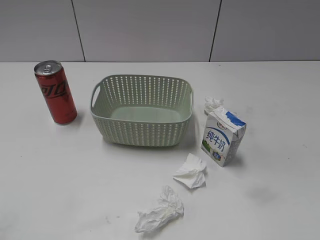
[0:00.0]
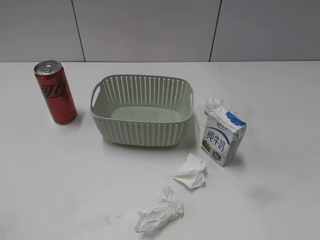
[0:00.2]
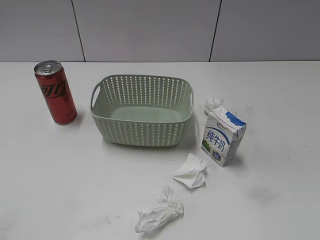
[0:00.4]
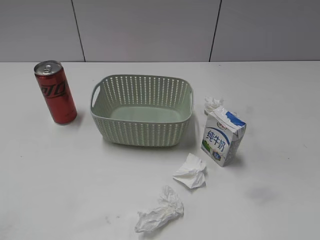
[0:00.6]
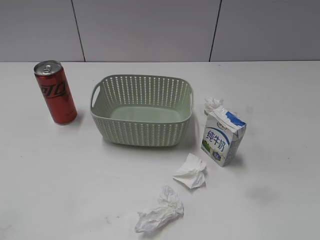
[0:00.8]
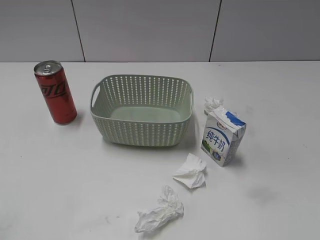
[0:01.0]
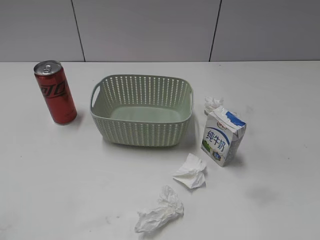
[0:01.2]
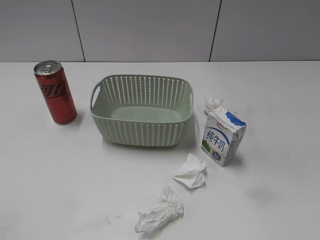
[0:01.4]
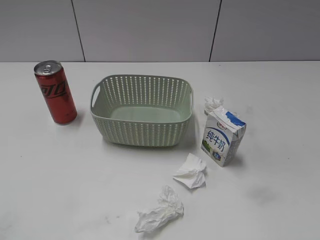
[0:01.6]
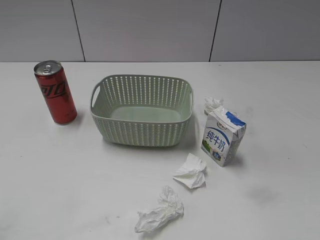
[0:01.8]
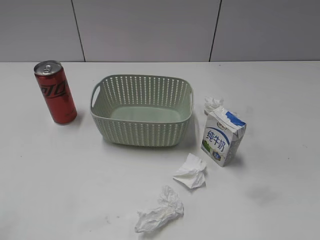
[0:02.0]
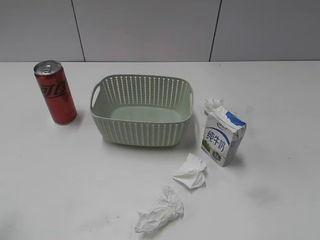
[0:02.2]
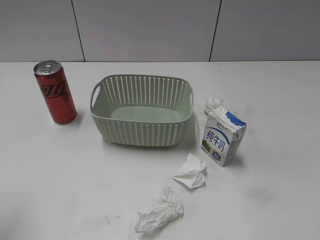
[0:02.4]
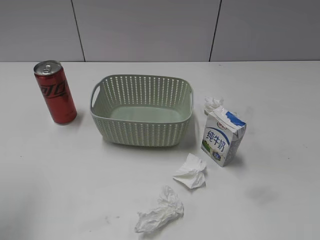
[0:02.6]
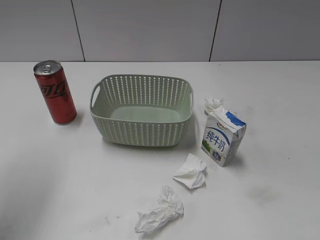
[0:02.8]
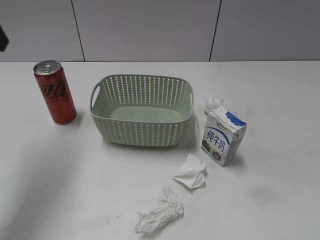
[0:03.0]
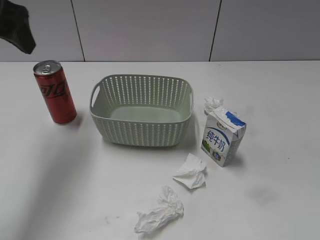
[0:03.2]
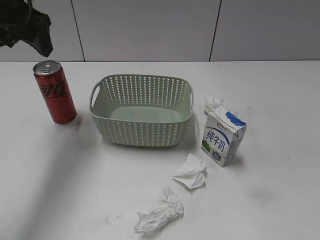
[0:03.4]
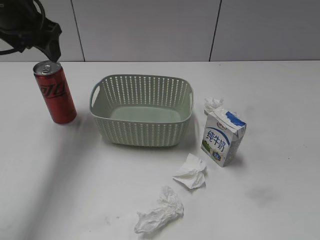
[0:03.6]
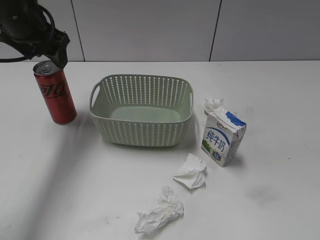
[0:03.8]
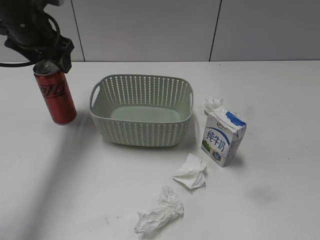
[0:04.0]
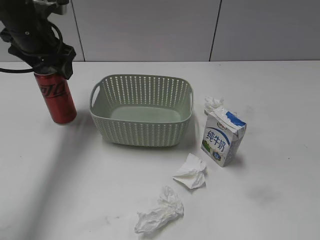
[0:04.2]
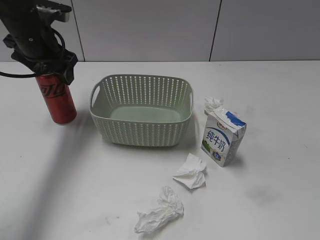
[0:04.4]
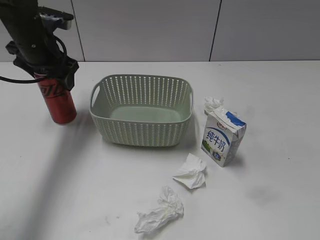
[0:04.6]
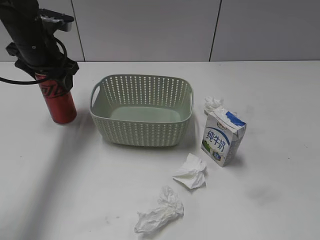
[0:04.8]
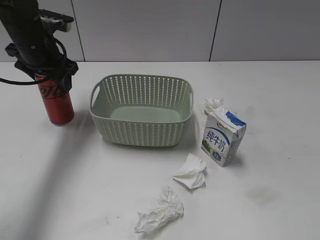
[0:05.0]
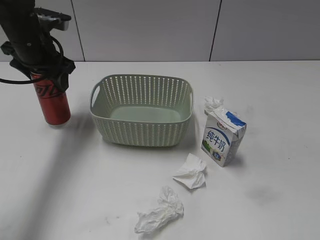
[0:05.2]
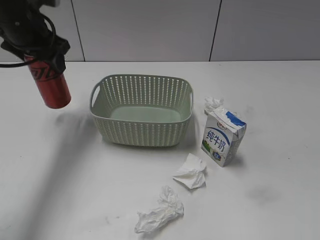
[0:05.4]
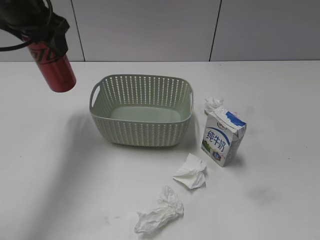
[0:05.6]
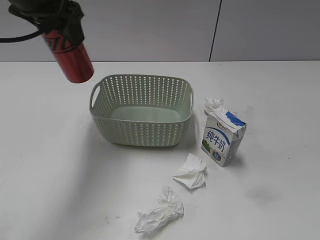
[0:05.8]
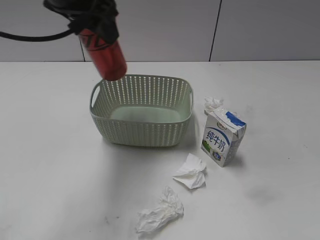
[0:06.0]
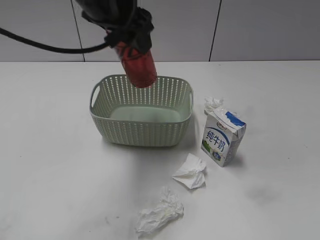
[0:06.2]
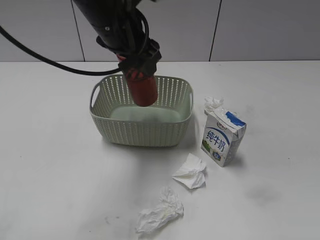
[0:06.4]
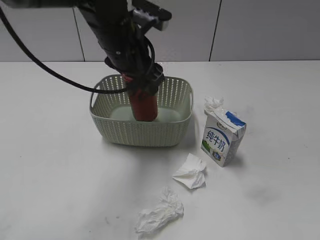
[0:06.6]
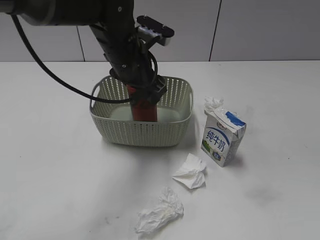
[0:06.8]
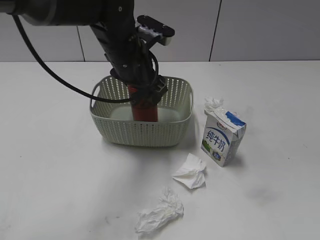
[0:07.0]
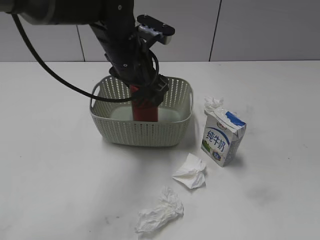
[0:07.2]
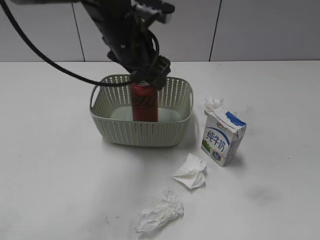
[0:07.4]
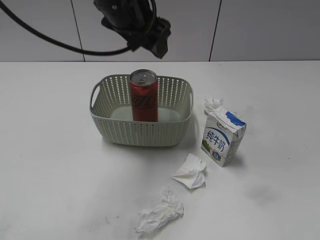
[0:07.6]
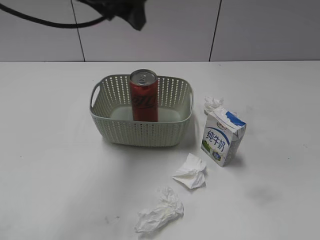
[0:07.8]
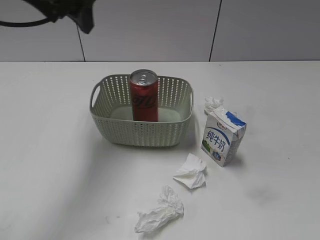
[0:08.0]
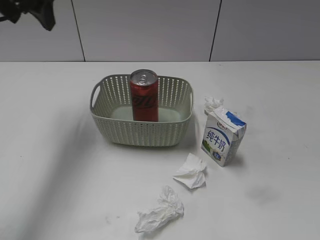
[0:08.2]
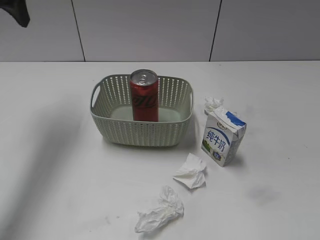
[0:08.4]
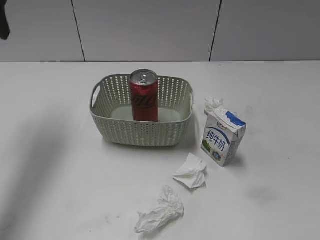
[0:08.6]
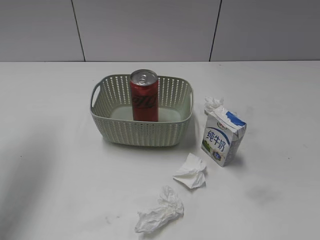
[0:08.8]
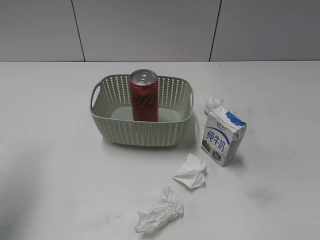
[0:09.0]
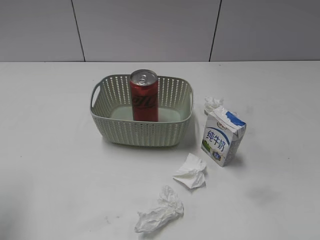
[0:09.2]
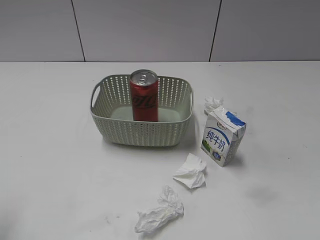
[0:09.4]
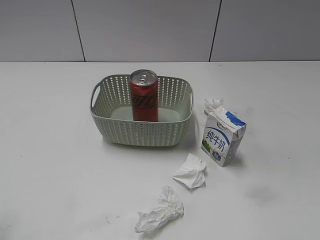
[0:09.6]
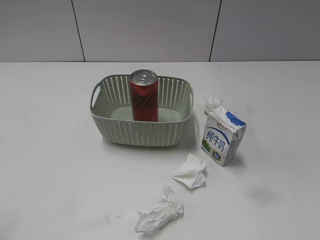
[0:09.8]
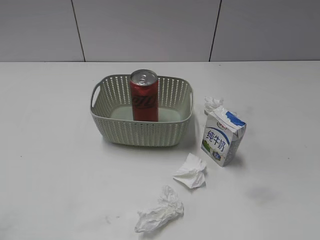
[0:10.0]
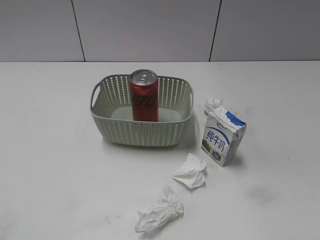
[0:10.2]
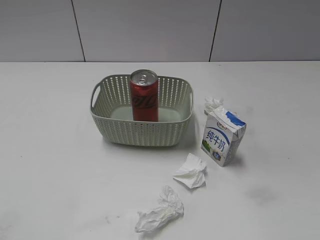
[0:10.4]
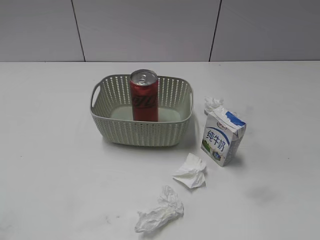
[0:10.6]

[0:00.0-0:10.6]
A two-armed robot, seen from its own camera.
0:01.6 to 0:03.0: The left gripper travels forward by about 25 cm, and opens up.
0:03.0 to 0:04.6: The left gripper is displaced downward and forward by roughly 20 cm.
0:04.6 to 0:06.0: The left gripper heads upward, to the right and backward, covering about 20 cm, and closes its fingers.
0:06.0 to 0:07.6: The left gripper is displaced to the right by about 5 cm, reaches about 15 cm downward, then returns, and opens.
0:07.6 to 0:09.0: The left gripper moves to the left and backward, roughly 25 cm, and closes.
0:09.0 to 0:10.6: The left gripper heads backward, covering approximately 25 cm.

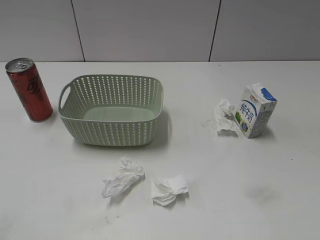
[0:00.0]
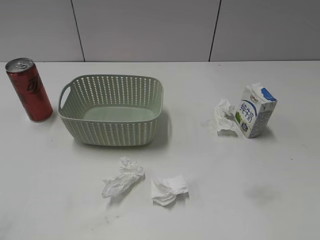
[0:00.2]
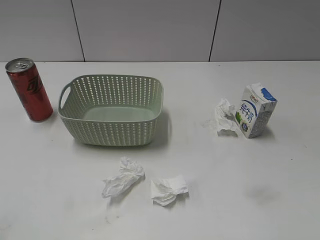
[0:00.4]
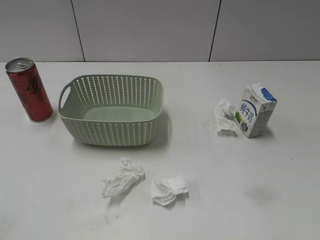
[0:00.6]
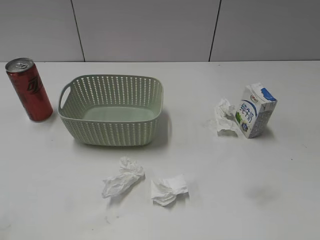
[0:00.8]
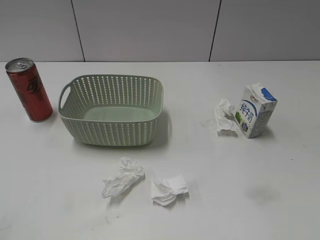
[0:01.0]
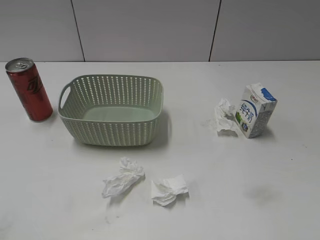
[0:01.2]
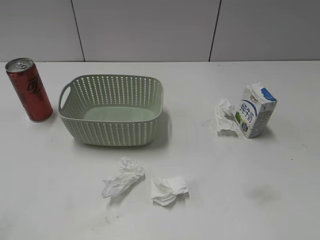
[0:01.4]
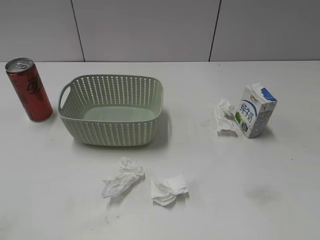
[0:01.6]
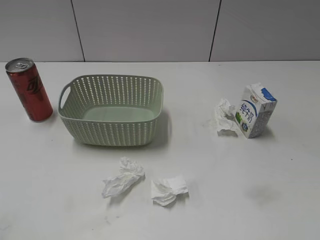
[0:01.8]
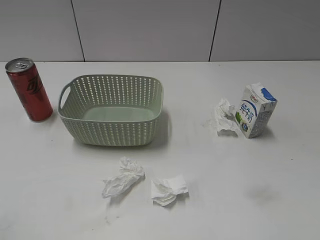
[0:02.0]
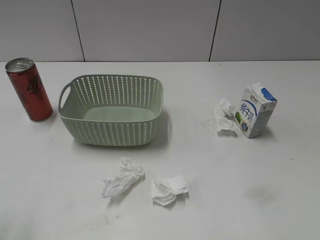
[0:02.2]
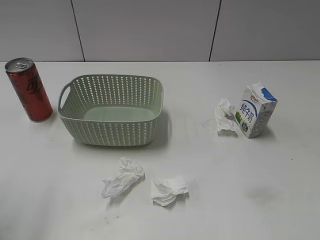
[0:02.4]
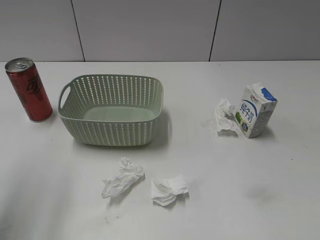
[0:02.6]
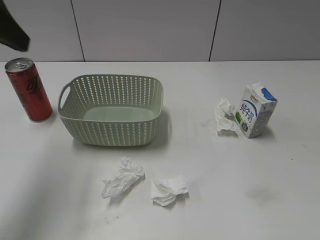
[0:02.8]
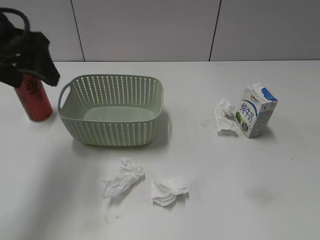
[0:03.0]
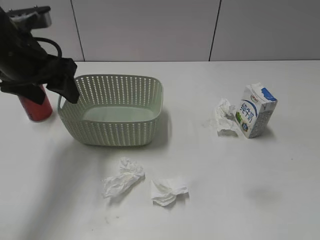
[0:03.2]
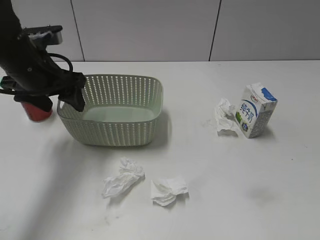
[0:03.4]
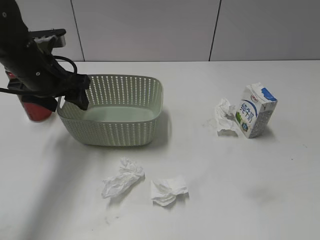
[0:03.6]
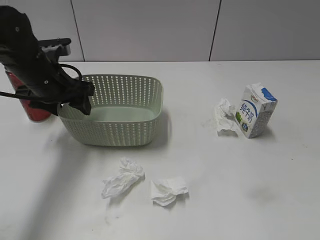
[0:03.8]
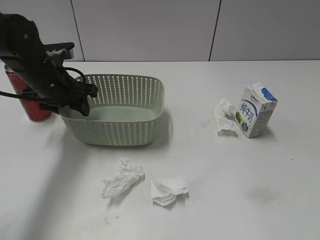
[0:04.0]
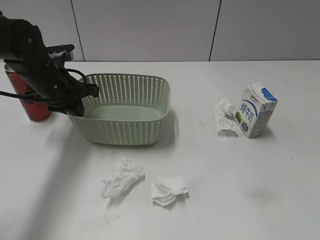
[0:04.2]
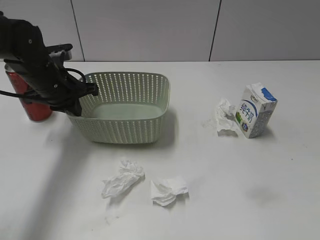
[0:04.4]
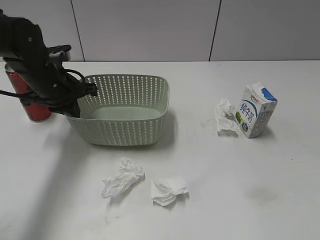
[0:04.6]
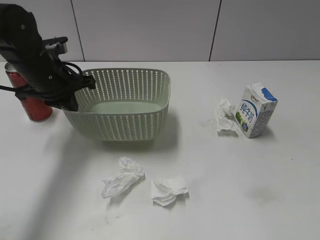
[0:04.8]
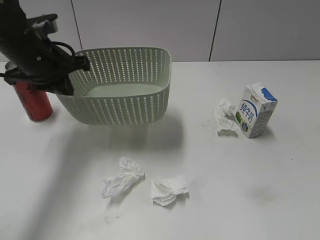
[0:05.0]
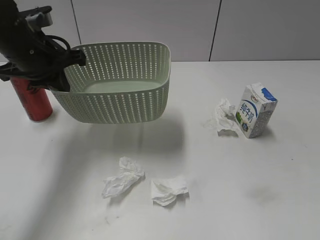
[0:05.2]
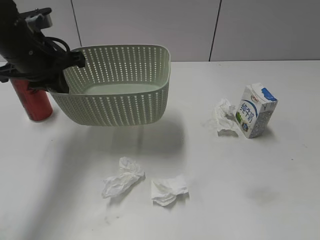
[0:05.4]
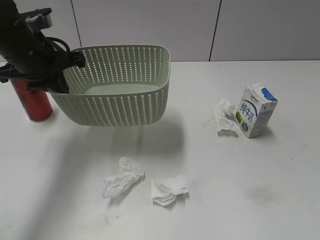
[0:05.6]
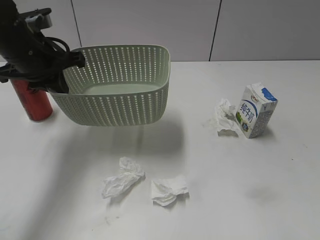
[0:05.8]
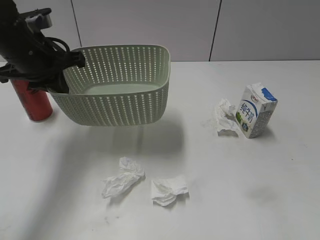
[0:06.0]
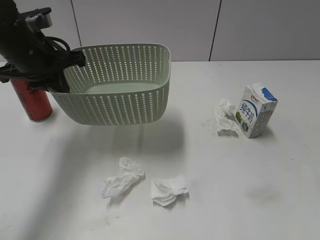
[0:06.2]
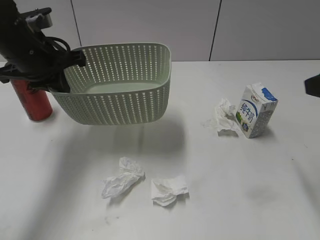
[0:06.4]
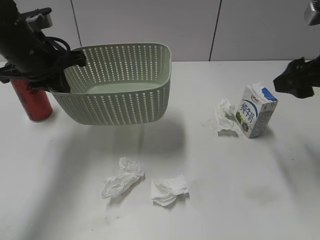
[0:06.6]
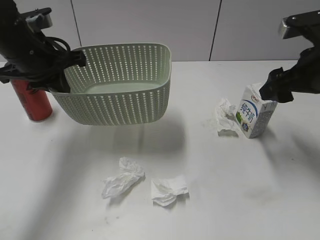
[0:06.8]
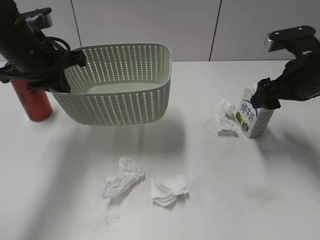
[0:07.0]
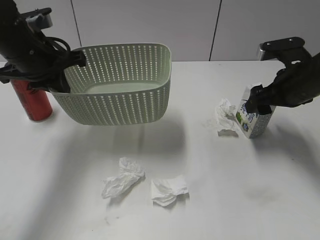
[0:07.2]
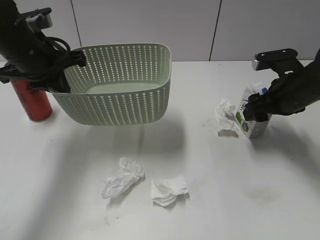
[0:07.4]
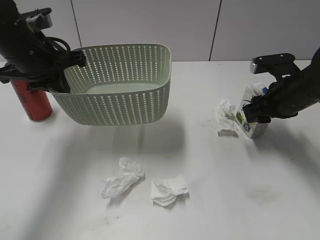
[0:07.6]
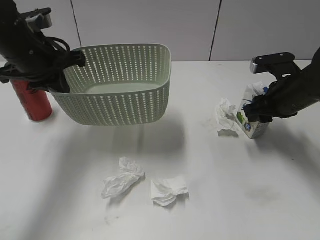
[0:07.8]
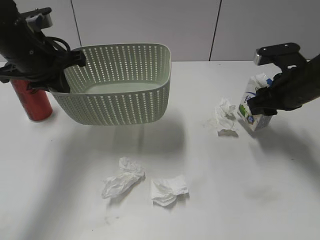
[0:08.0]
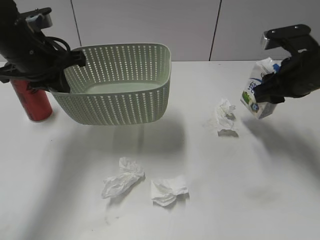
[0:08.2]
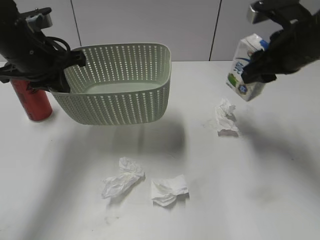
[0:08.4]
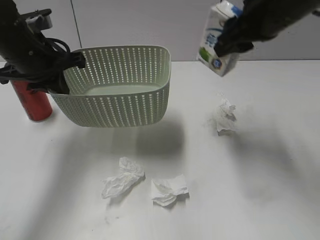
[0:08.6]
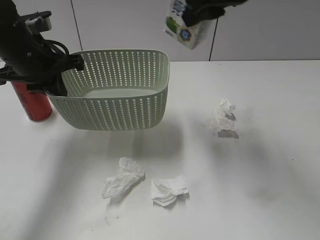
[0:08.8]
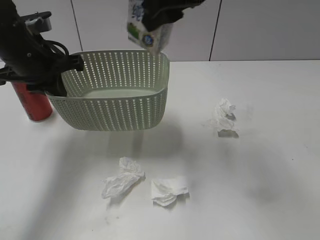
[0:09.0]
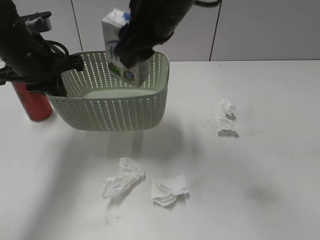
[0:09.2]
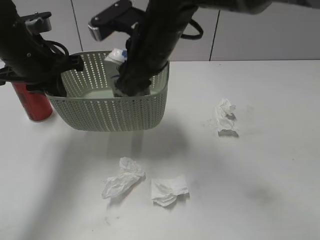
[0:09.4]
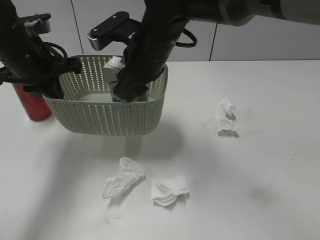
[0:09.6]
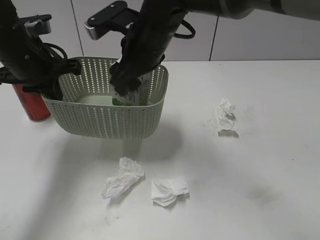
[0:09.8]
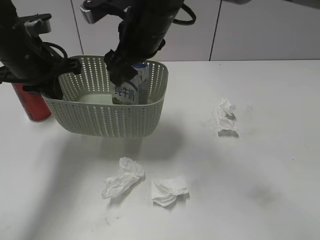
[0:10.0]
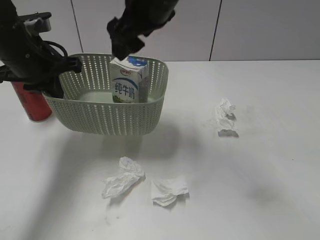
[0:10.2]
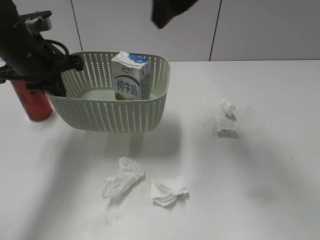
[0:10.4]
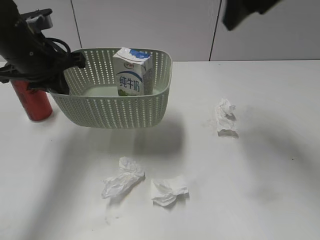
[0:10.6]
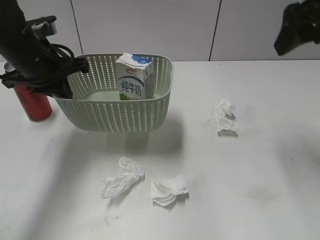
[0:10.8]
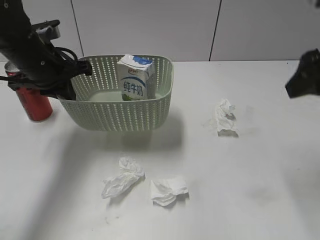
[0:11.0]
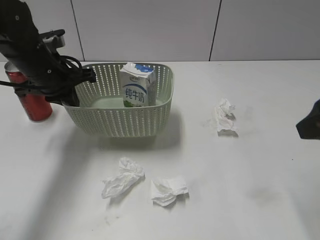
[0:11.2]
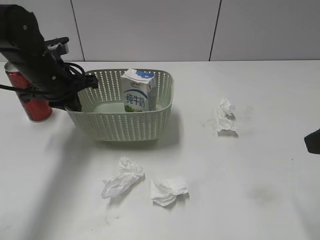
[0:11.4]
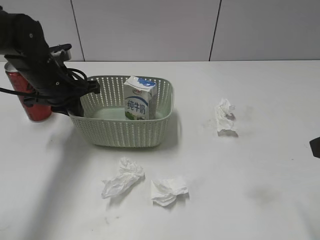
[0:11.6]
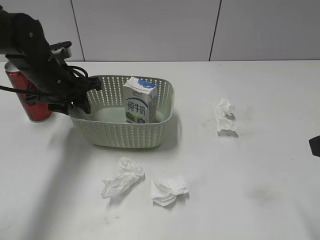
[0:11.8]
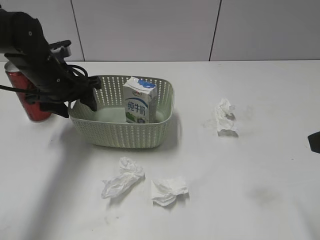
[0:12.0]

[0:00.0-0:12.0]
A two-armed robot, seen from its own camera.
Step, 0:02.8 to 0:04.2: Grasp the basket with left gripper.
Step, 0:04.4 to 0:05.4: Lift the basket with left gripper.
Step, 0:05.6 to 0:07.6: Grasp the milk with right gripper.
Step, 0:07.8 to 0:10.2: Place the milk in the basket with right gripper.
0:01.6 to 0:03.0: The left gripper shifts about 30 cm forward.
0:03.0 to 0:04.4: The left gripper heads downward and forward, covering approximately 15 cm, and closes.
0:04.4 to 0:06.0: The right gripper travels forward by roughly 10 cm. Meanwhile the left gripper heads upward, covering roughly 10 cm.
0:06.0 to 0:07.6: The right gripper goes approximately 30 cm forward and downward, and closes up.
0:07.6 to 0:09.0: The right gripper travels upward and to the left by roughly 30 cm.
0:09.0 to 0:10.4: The right gripper goes downward and returns, some 15 cm each way, and opens its fingers.
0:10.4 to 0:12.0: The right gripper goes some 30 cm to the right, backward and downward. The left gripper travels downward by approximately 5 cm, and opens its fingers.
